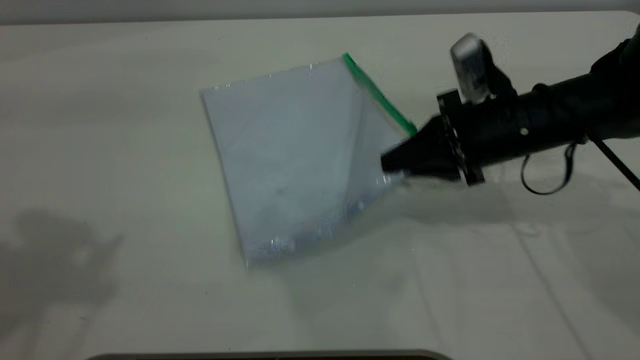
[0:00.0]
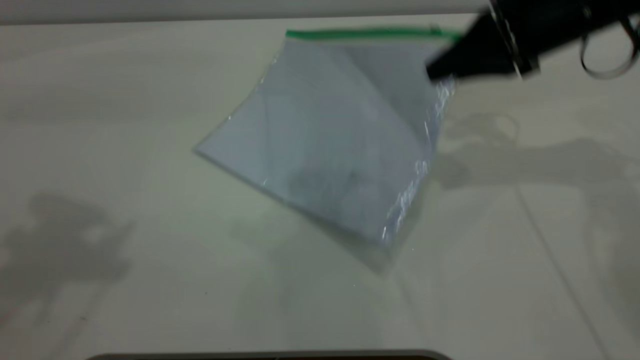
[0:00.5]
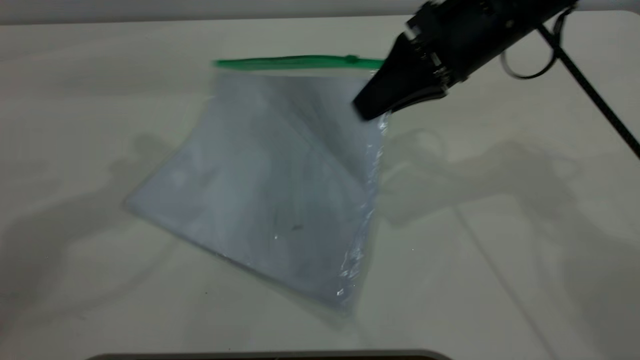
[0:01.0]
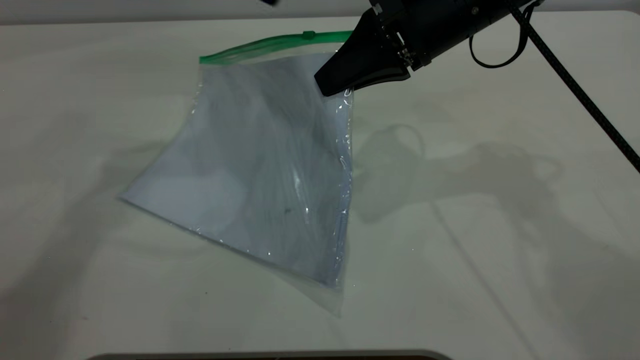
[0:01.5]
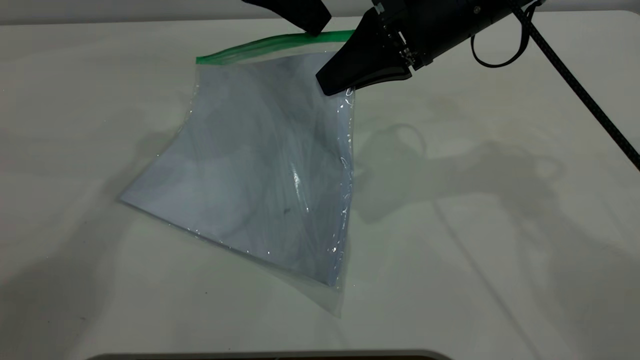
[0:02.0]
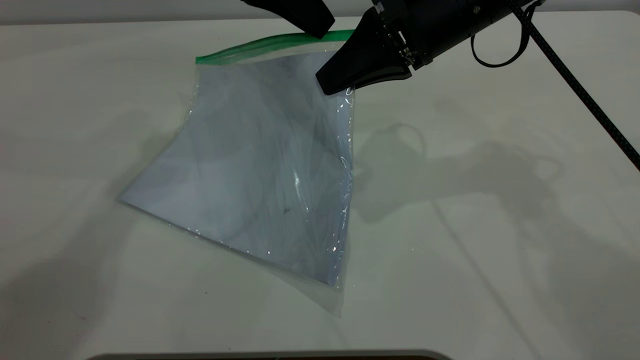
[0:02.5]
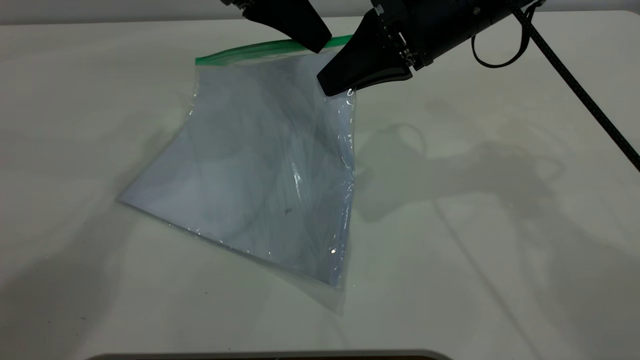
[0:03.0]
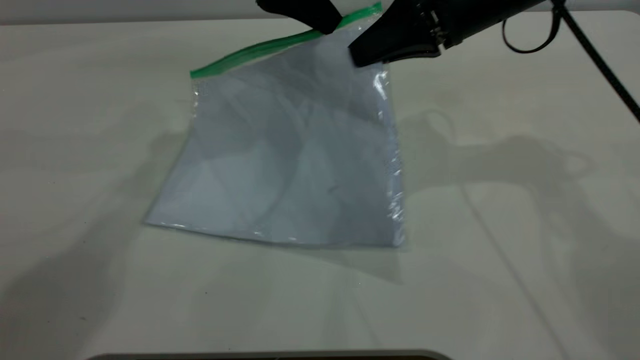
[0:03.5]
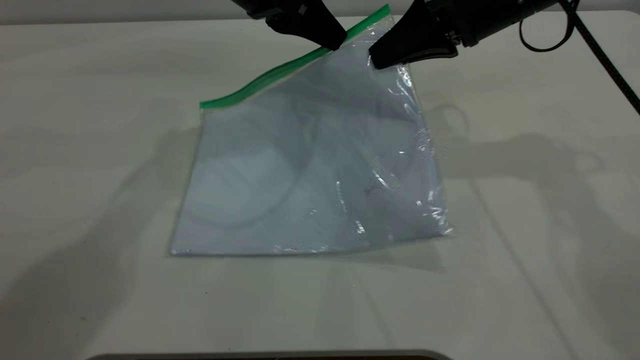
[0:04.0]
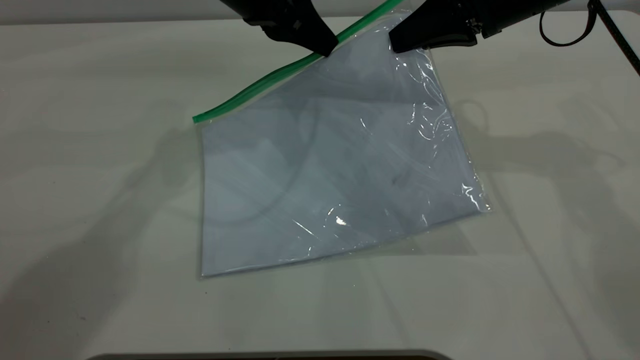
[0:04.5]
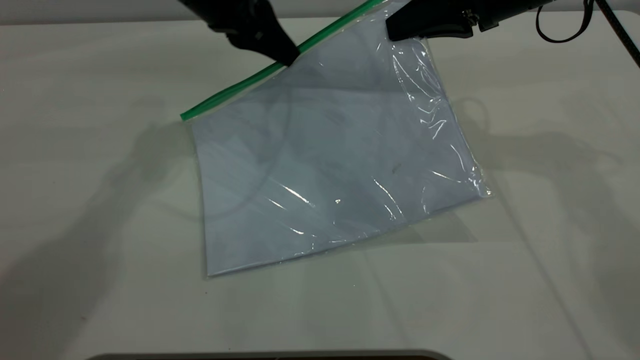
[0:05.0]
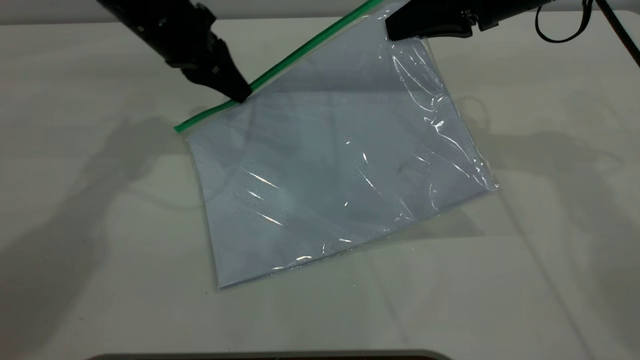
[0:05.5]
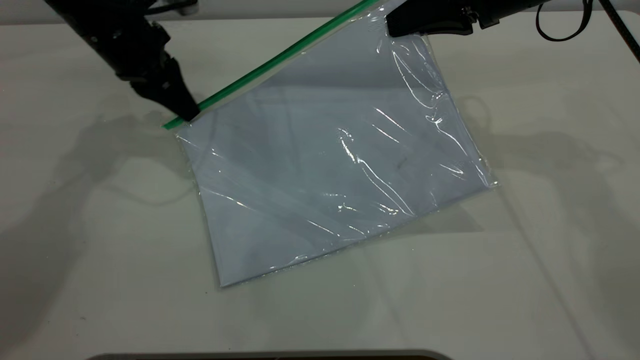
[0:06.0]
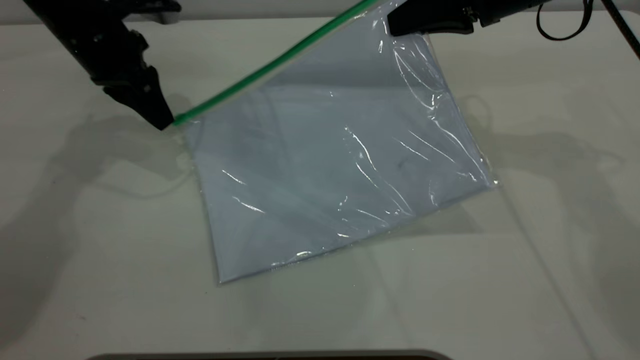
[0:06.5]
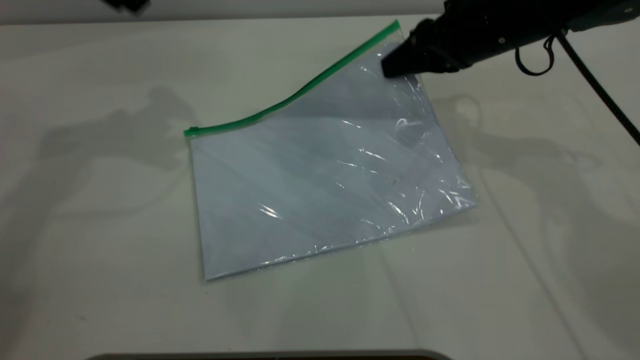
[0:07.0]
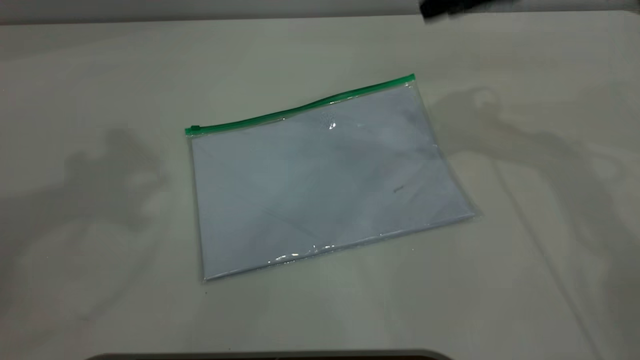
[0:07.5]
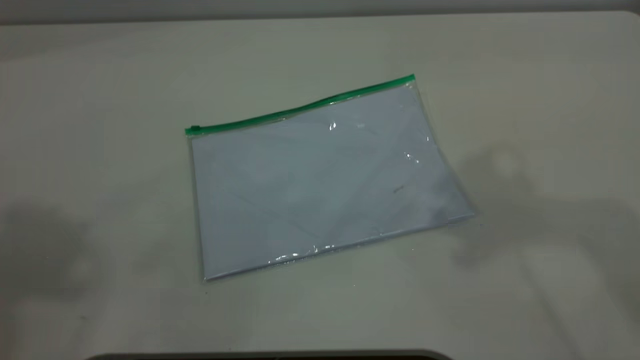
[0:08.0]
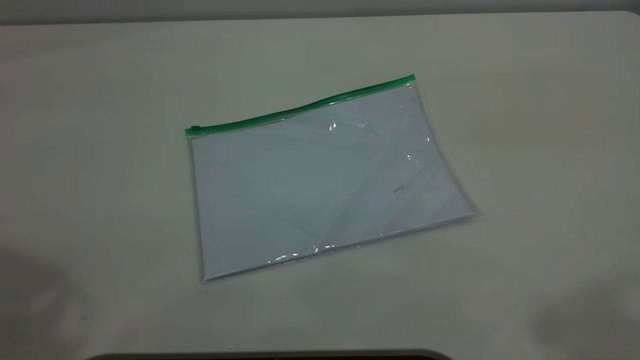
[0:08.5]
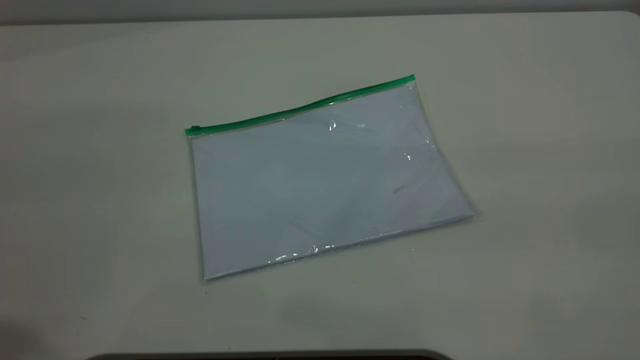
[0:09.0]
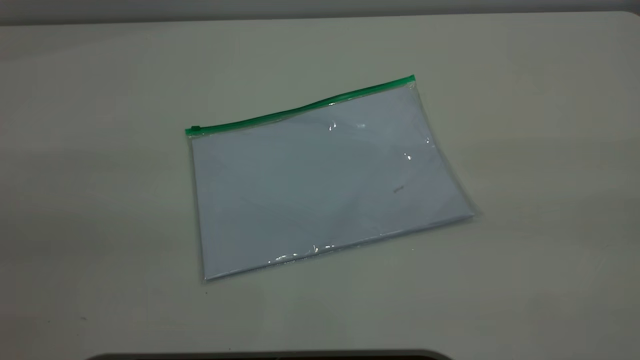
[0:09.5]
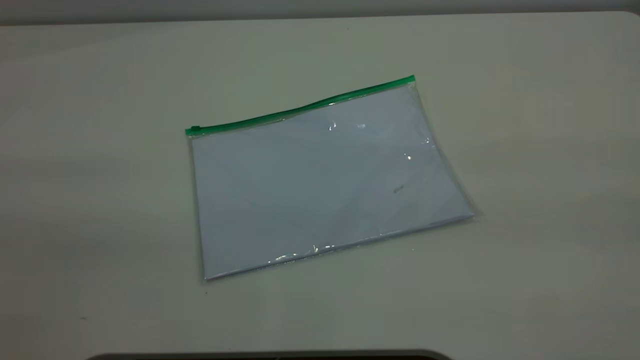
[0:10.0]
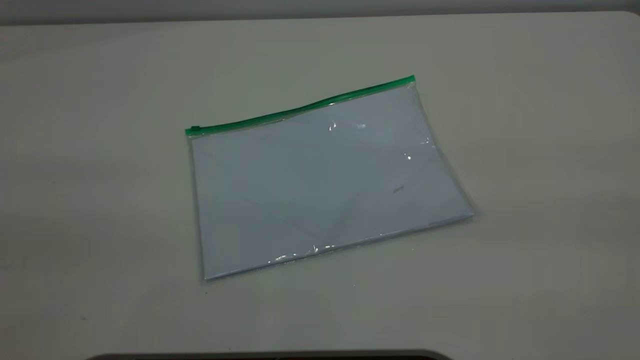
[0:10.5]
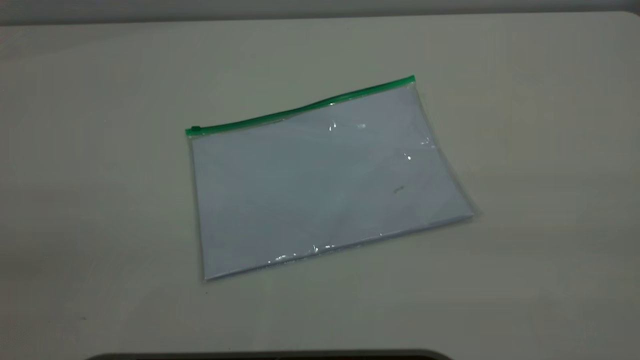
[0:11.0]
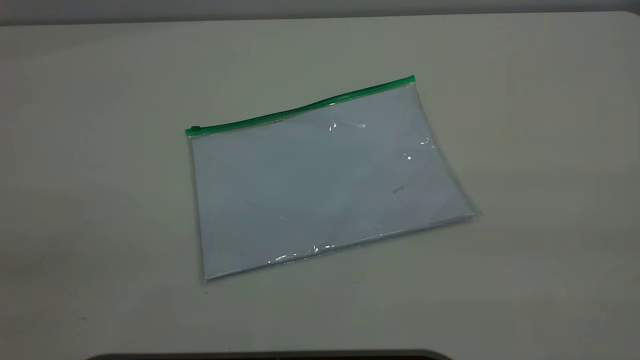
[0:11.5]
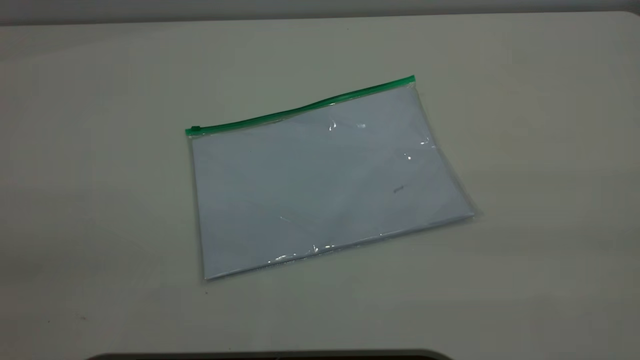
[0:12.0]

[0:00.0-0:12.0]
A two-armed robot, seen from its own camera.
Step, 0:01.5 to 0:06.5: Pulling up the zipper on the transparent plastic bag with the left gripper to close it.
Step, 0:07.0 to 0:07.5: Place the transparent plastic bag.
0:00.0 to 0:02.0: The left gripper is displaced forward, to the right and downward by about 30 cm. Meanwhile the right gripper is displaced upward and to the left by about 15 cm.
0:02.0 to 0:04.0: The right gripper is displaced to the right by some 5 cm, while the left gripper closes.
0:04.0 to 0:06.0: The left gripper goes roughly 15 cm to the left and downward.
0:06.0 to 0:08.0: The right gripper shifts approximately 25 cm upward and backward, and opens its fingers; the left gripper shifts about 50 cm upward and backward, and opens its fingers.

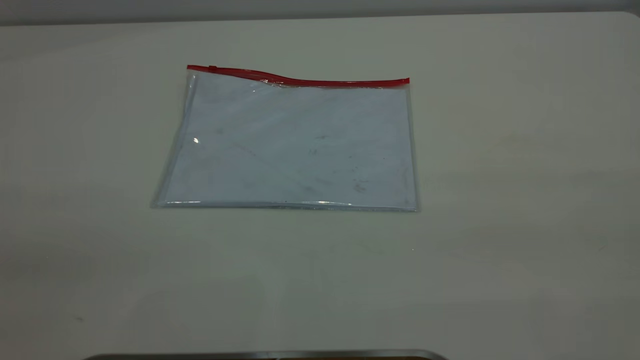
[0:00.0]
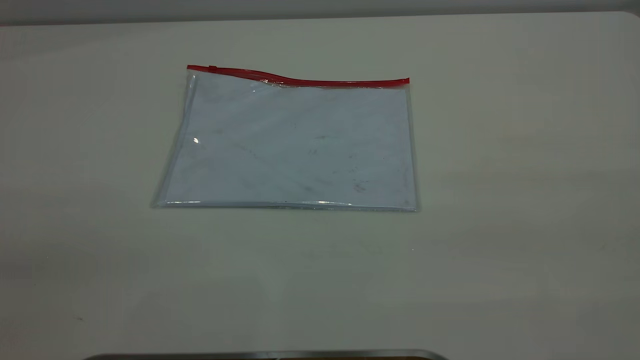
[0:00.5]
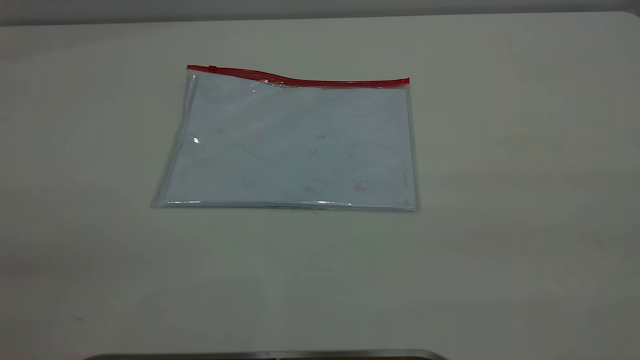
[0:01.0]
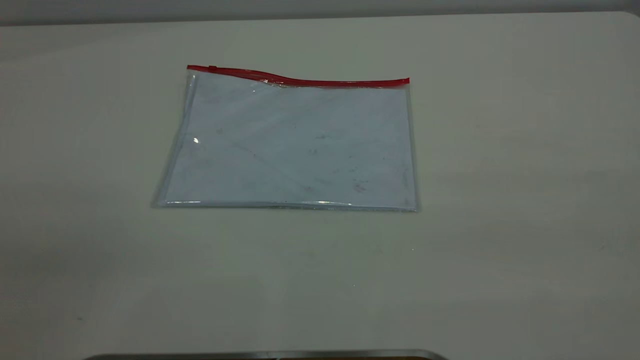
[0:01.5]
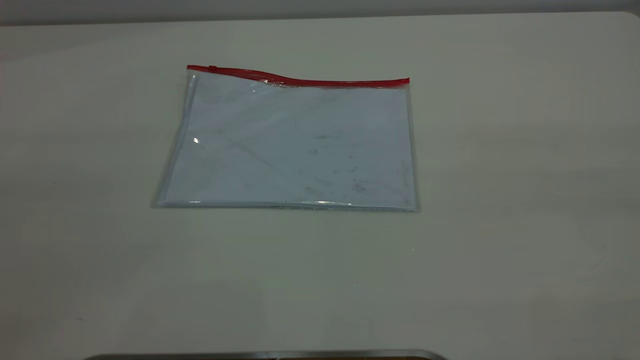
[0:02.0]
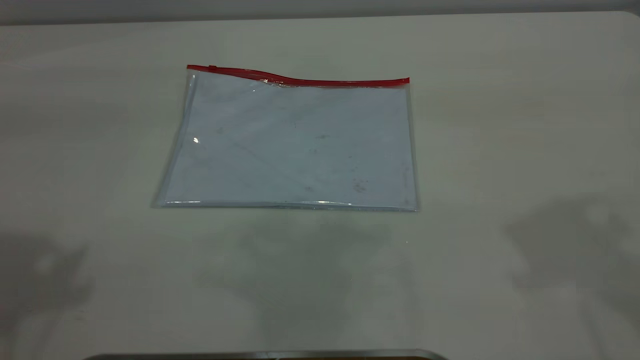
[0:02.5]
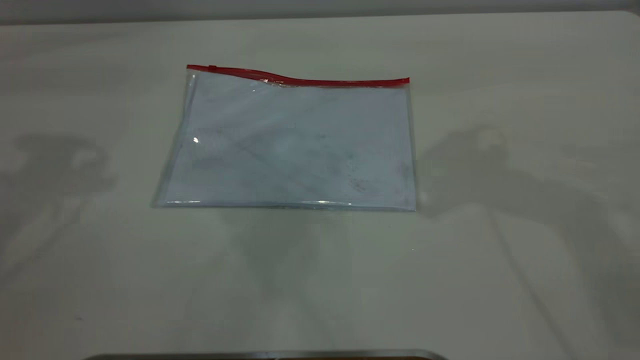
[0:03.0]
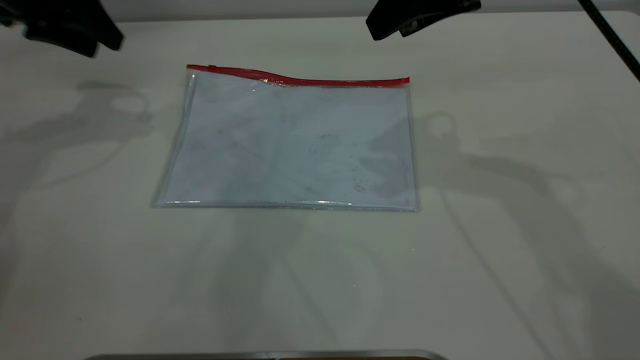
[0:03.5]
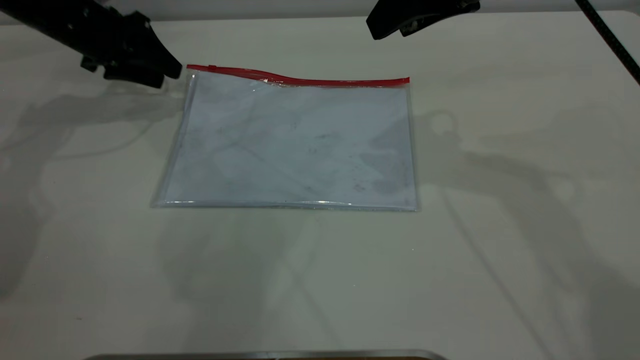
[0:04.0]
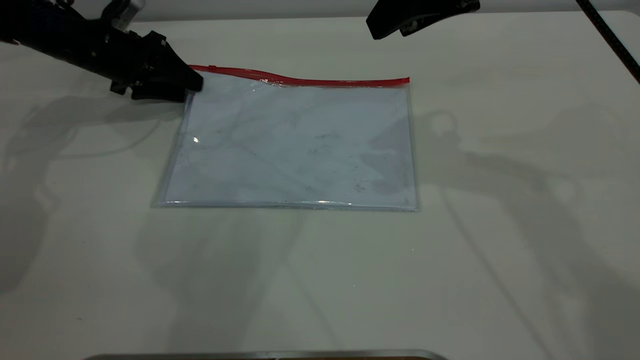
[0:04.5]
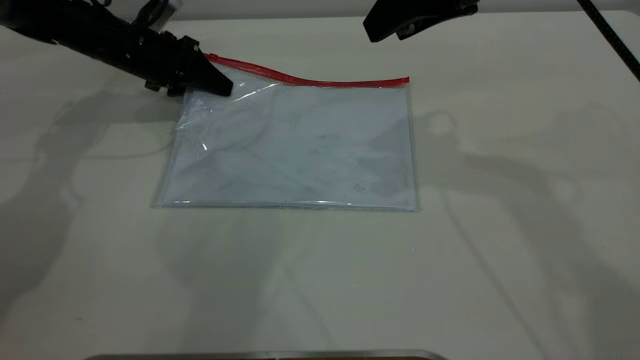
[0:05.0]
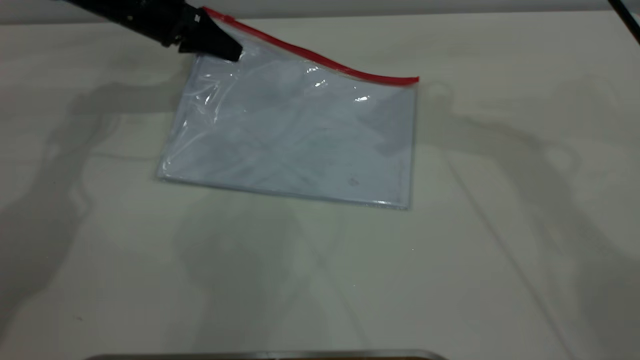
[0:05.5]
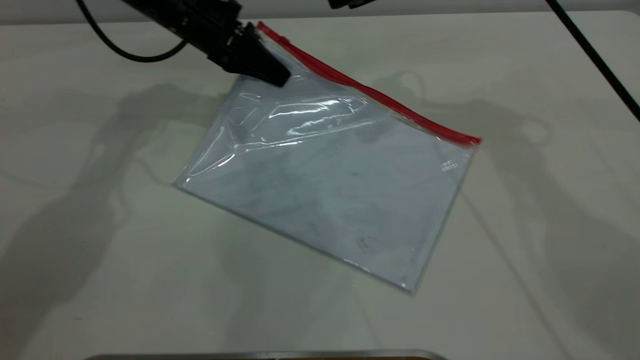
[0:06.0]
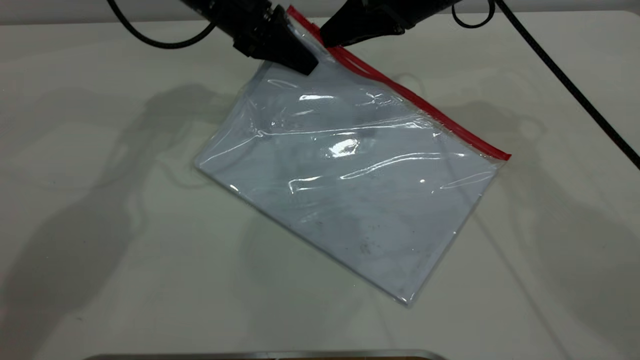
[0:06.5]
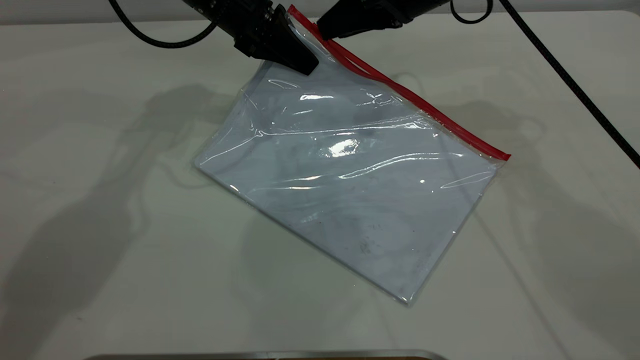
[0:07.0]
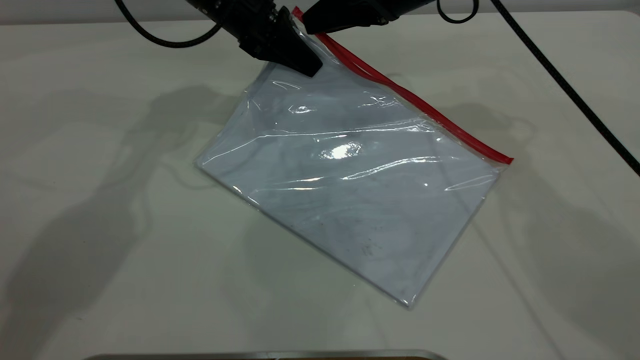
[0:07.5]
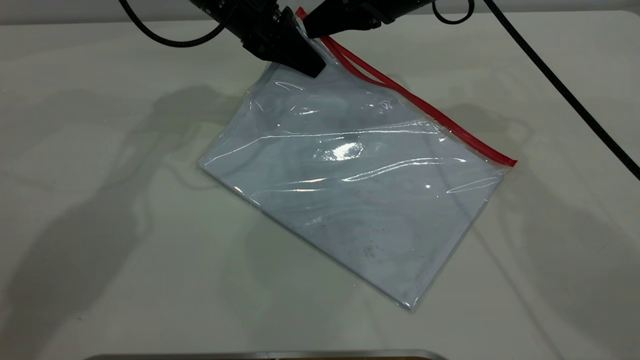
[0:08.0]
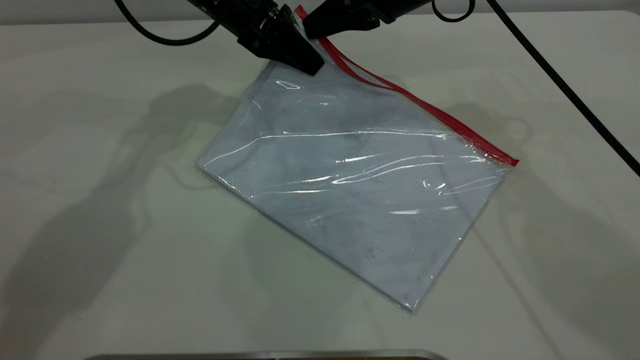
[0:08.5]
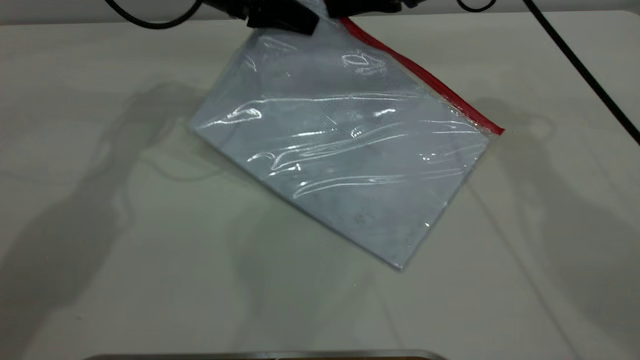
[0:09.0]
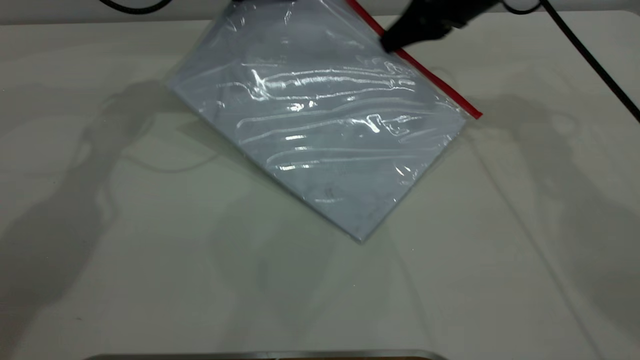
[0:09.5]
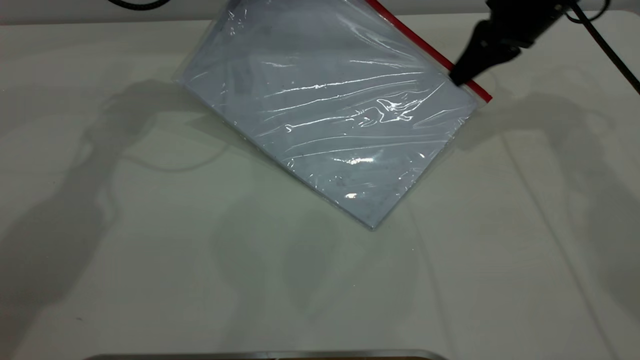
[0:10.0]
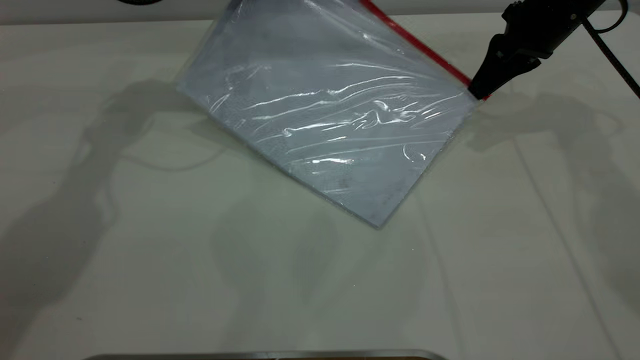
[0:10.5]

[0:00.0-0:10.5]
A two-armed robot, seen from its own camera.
Step, 0:00.0 to 0:05.0: Pick up the transparent plastic bag with the left gripper.
0:02.0 to 0:04.0: The left gripper moves forward and downward, some 50 cm; the right gripper is displaced forward, to the left and downward by about 35 cm.
0:04.0 to 0:06.5: The left gripper heads to the right, covering approximately 20 cm, and closes its fingers, while the right gripper heads forward and downward, covering some 10 cm.
0:06.5 to 0:08.5: The right gripper closes up.
0:08.5 to 0:10.5: The left gripper shifts by some 5 cm. The right gripper travels to the right by some 15 cm.
